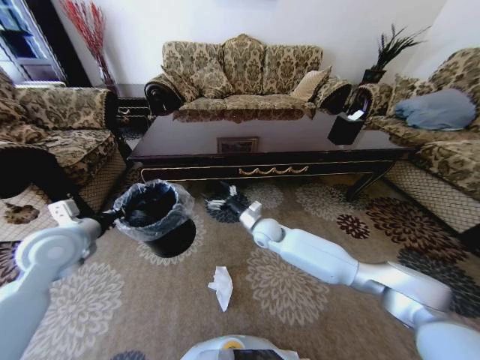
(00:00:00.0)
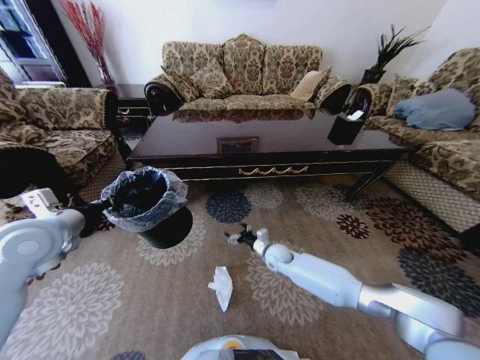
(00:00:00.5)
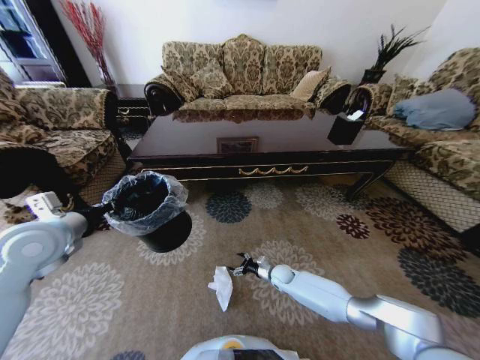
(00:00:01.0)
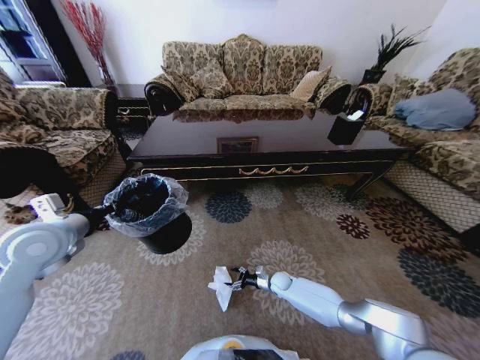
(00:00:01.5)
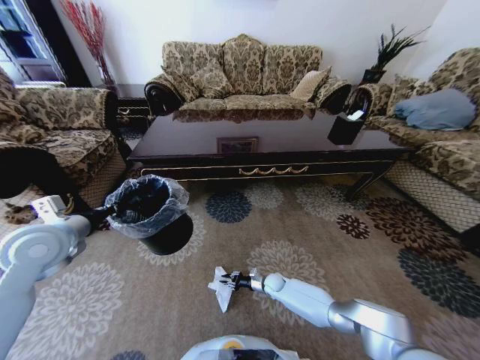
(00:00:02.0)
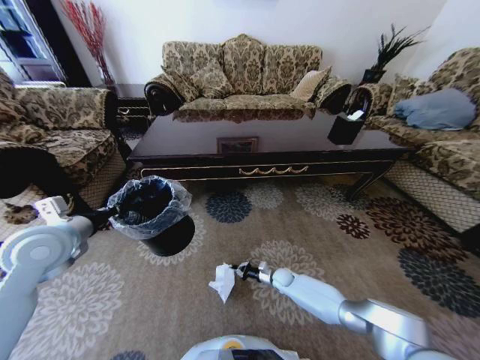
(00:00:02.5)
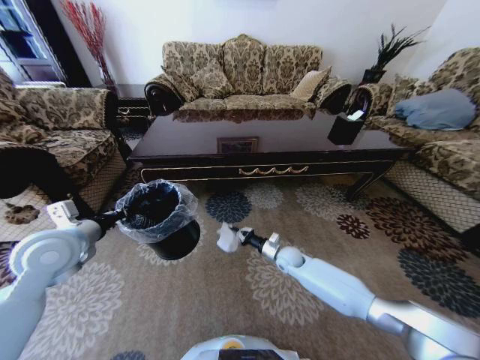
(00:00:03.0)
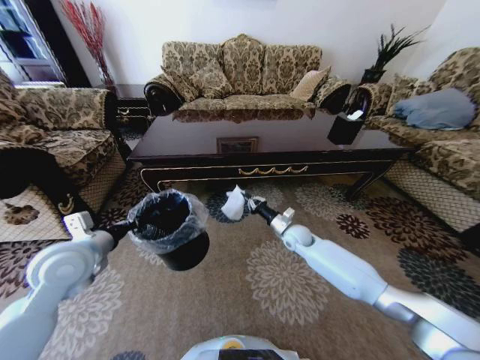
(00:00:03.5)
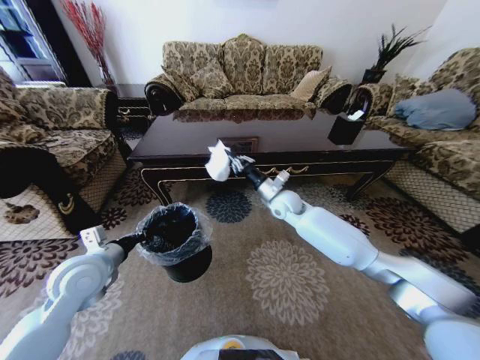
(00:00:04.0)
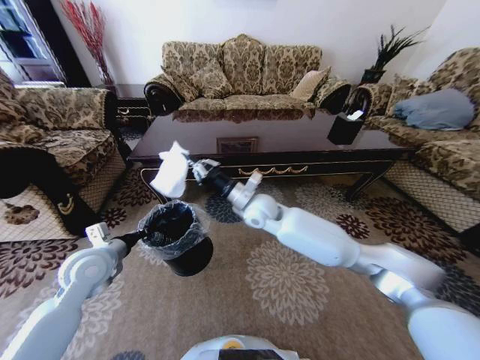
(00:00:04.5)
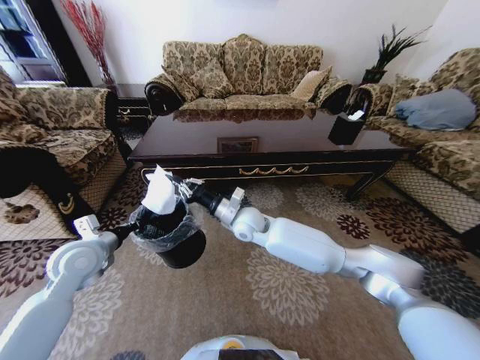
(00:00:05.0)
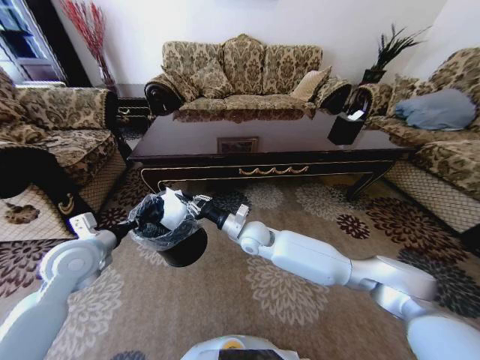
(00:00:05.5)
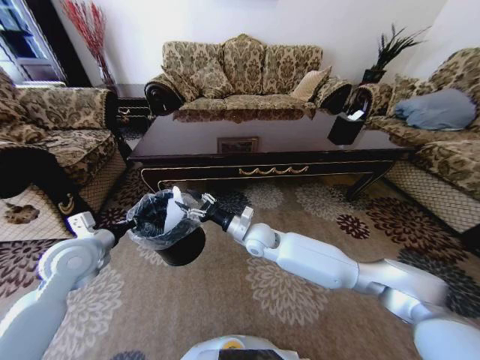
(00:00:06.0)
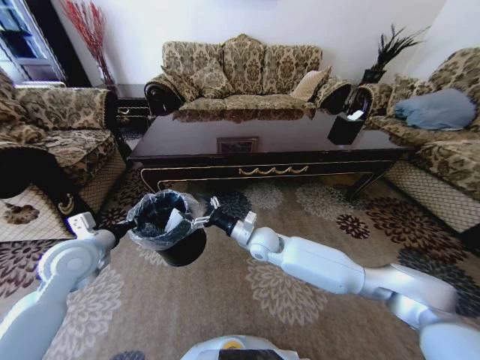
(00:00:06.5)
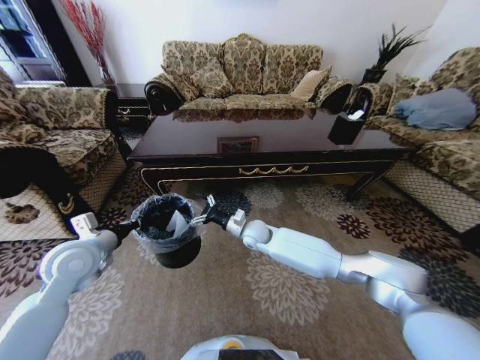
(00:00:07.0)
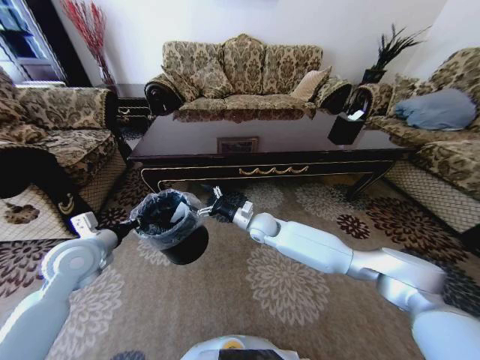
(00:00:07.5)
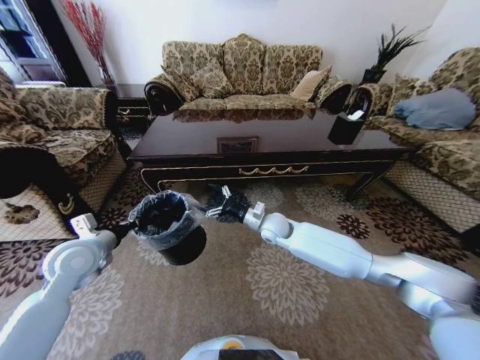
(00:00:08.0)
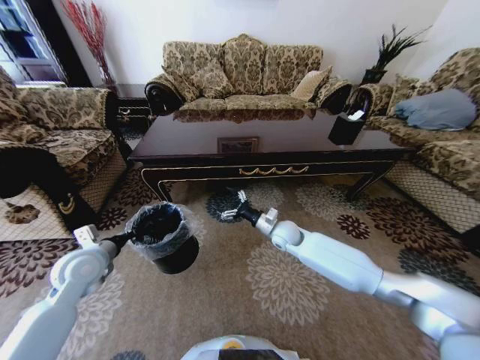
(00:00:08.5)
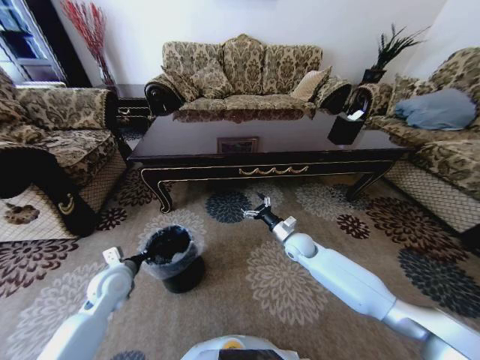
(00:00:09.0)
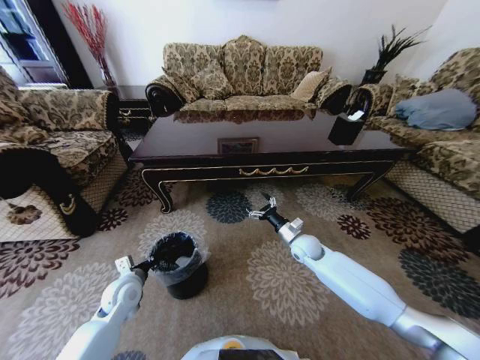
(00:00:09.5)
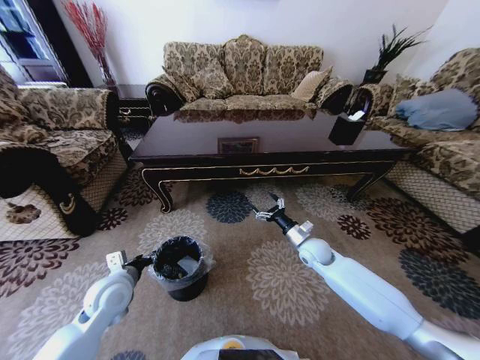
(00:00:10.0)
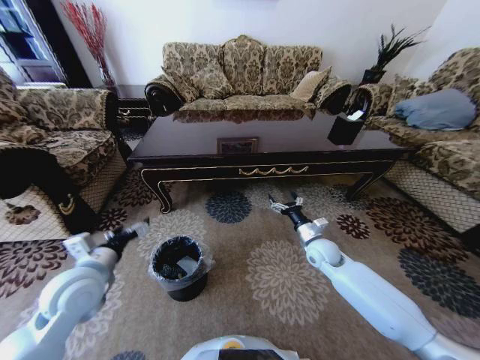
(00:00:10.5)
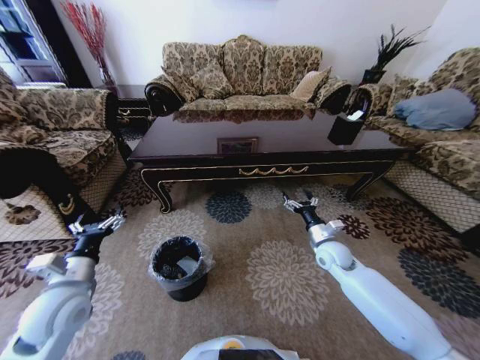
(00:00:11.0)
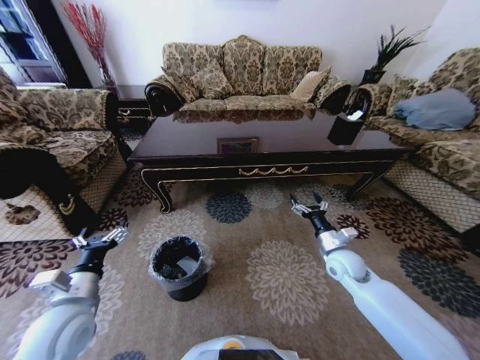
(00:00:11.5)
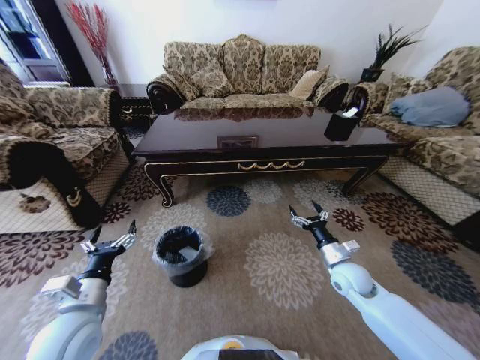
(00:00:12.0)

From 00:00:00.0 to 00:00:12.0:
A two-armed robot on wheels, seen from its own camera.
Task of the whole recording: Move to the front of the table and pick up the trash from the floor, then place it into the trash bin.
From 00:00:00.0 to 00:00:02.0: The right gripper is displaced downward by roughly 30 cm, and closes.
From 00:00:02.0 to 00:00:04.0: The right gripper travels upward by roughly 40 cm, while the left gripper travels downward and to the right by roughly 10 cm.
From 00:00:04.0 to 00:00:06.0: The right gripper shifts roughly 15 cm to the left, backward and downward, and opens its fingers.
From 00:00:06.0 to 00:00:08.0: The right gripper travels to the right by approximately 5 cm, and opens up.
From 00:00:08.0 to 00:00:10.0: The right gripper is displaced to the right and downward by approximately 15 cm. The left gripper shifts about 10 cm downward and to the right, and opens its fingers.
From 00:00:10.0 to 00:00:12.0: The left gripper travels backward by approximately 10 cm, and opens. The right gripper moves backward and to the right, roughly 10 cm.

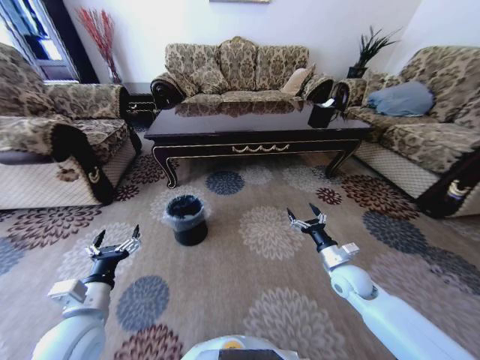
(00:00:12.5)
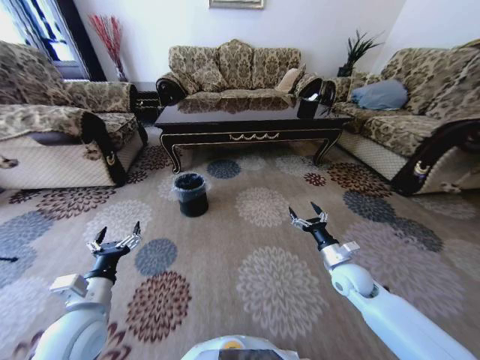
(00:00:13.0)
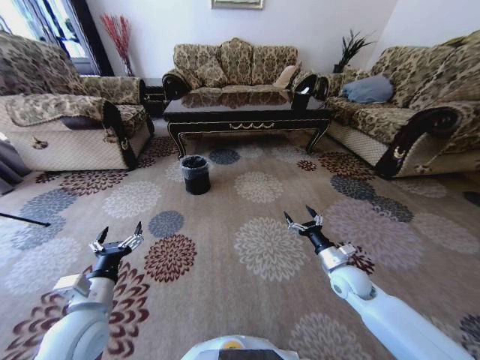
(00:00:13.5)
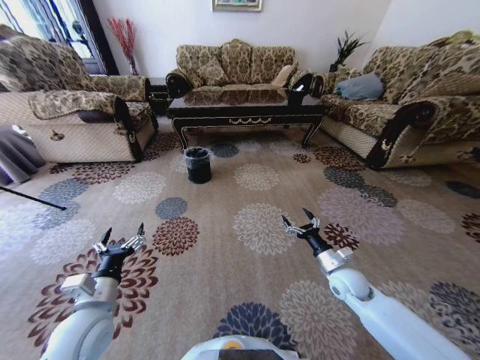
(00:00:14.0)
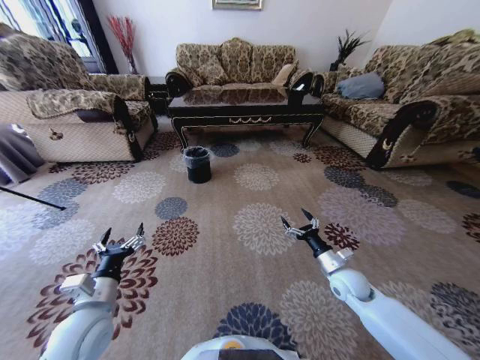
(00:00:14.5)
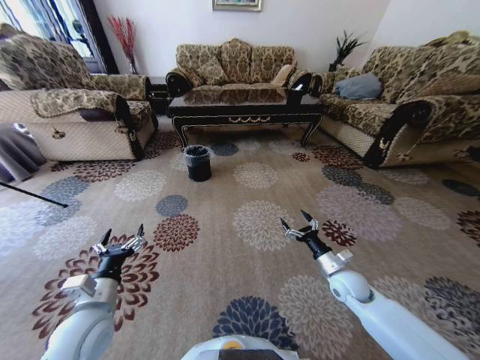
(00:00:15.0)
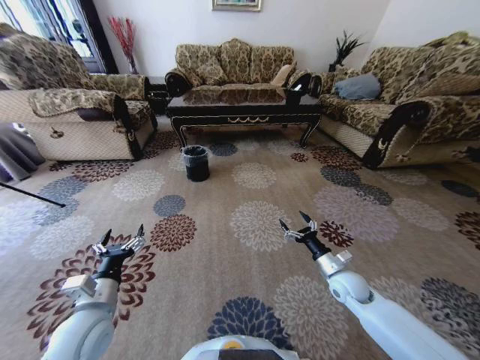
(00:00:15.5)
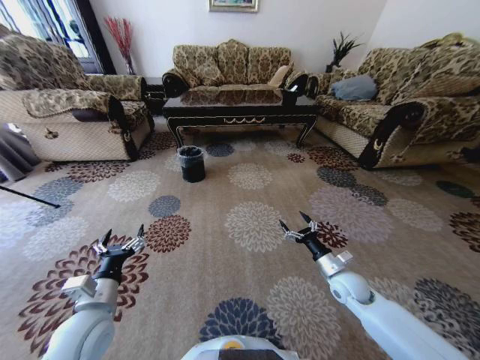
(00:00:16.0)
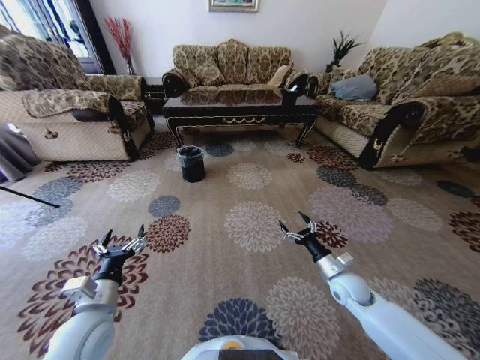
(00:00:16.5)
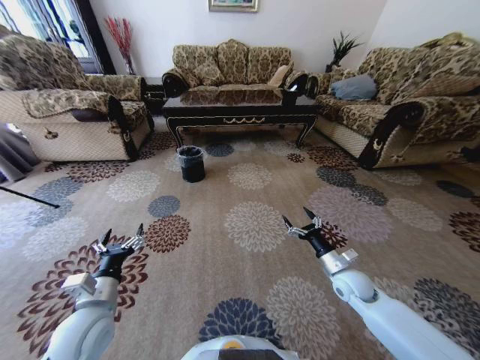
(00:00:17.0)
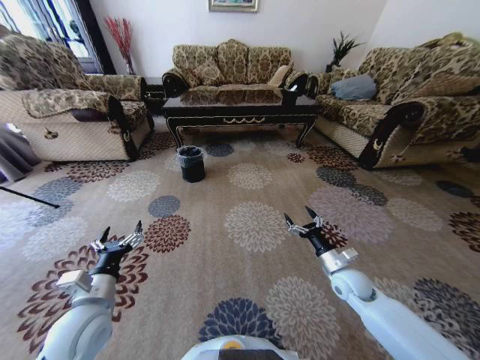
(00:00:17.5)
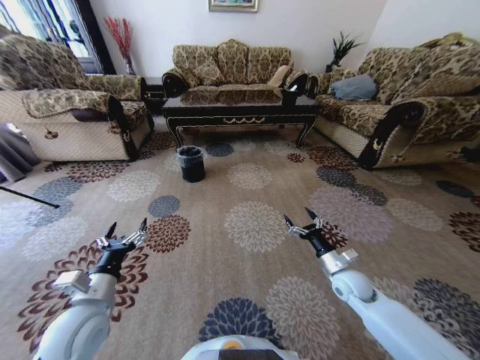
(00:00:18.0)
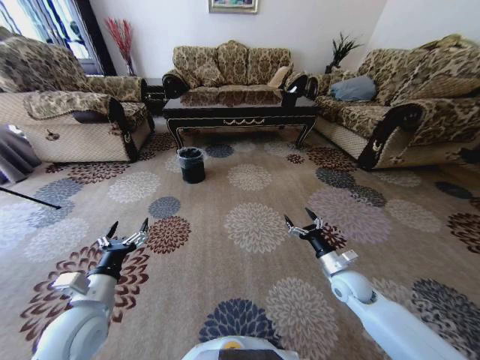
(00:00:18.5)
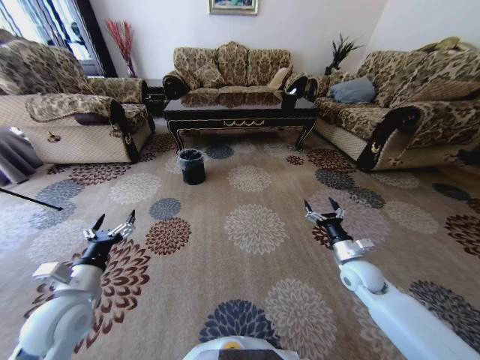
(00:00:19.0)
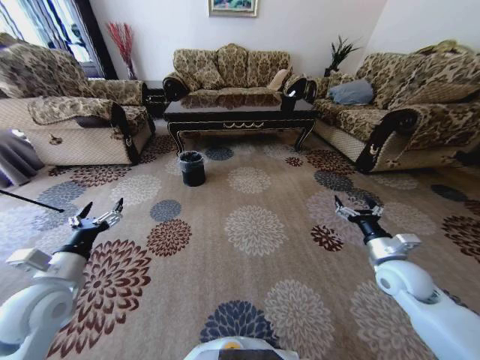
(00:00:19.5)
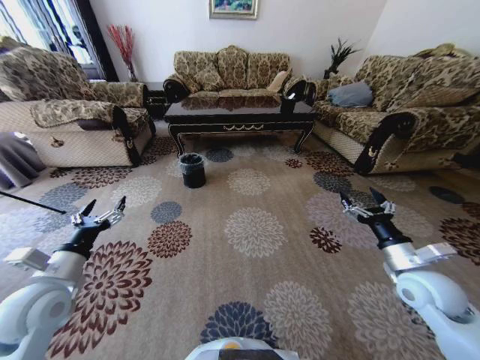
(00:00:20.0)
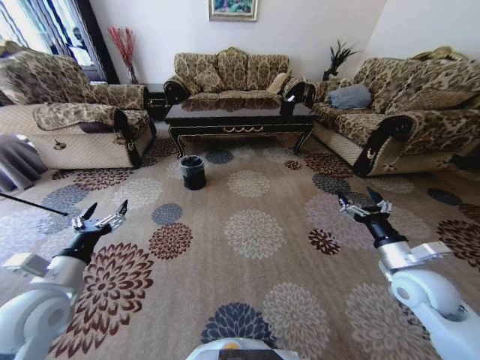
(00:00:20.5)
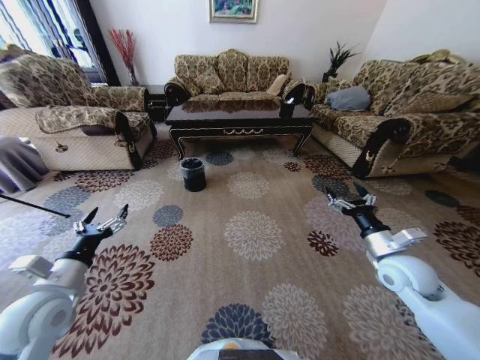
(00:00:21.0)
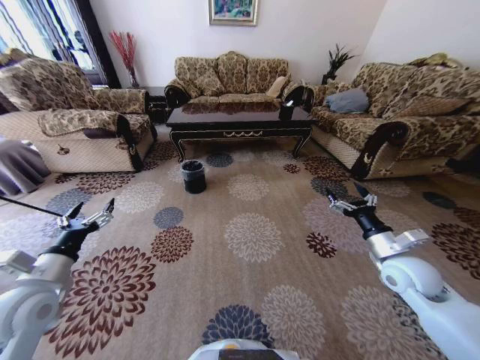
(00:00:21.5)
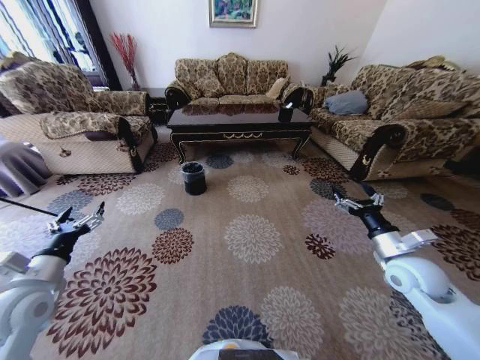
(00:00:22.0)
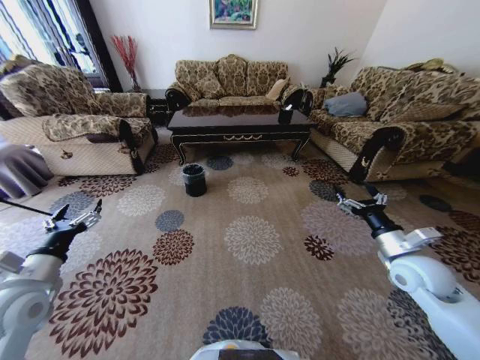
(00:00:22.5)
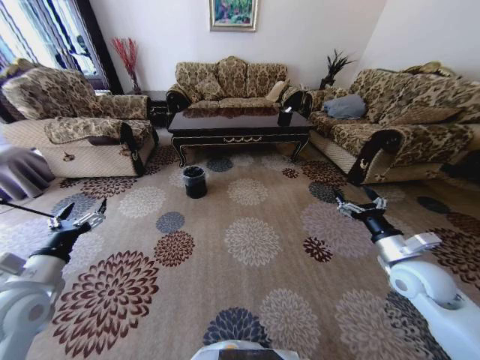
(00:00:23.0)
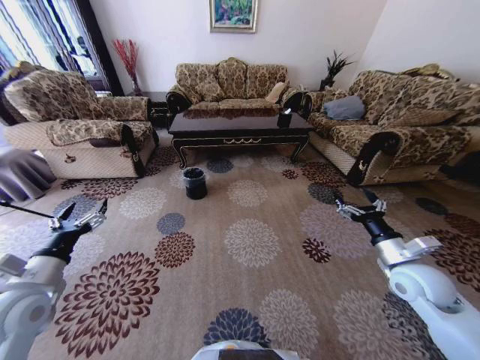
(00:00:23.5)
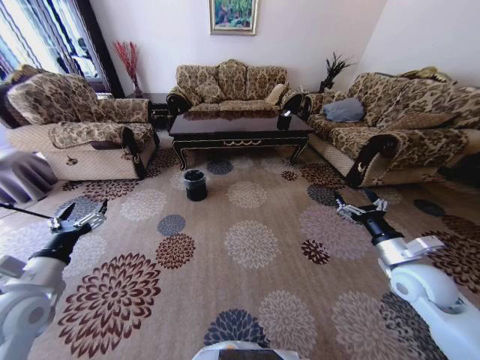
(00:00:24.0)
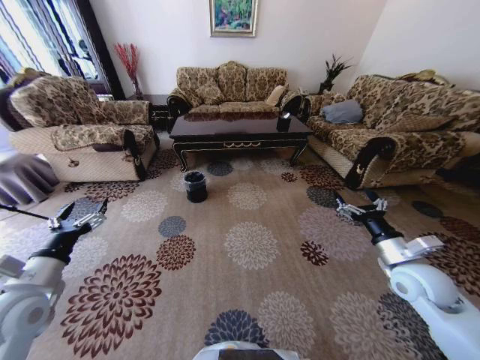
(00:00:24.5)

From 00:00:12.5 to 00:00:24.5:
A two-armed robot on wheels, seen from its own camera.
Task of the whole recording: Move to the front of the table and pick up the trash from the floor, then place it into the trash bin.
From 00:00:16.5 to 00:00:18.5: There are only small adjustments of the grippers.
From 00:00:18.5 to 00:00:20.5: The right gripper heads upward and to the right, covering roughly 15 cm. The left gripper is displaced to the left and upward by about 10 cm.
From 00:00:20.5 to 00:00:22.5: The left gripper heads to the left, covering approximately 5 cm.

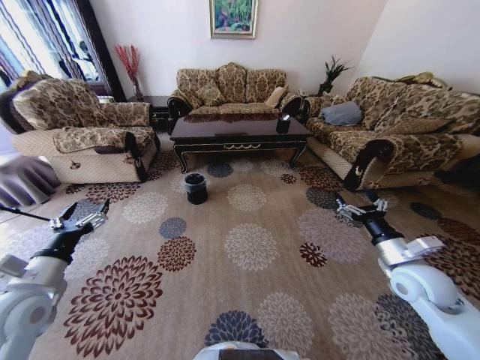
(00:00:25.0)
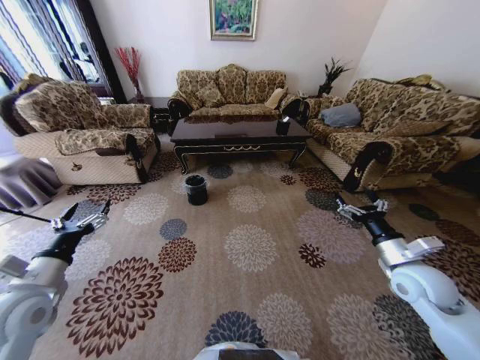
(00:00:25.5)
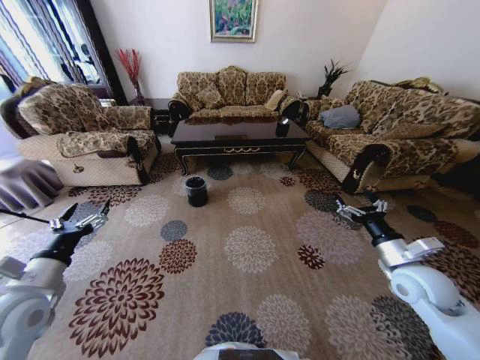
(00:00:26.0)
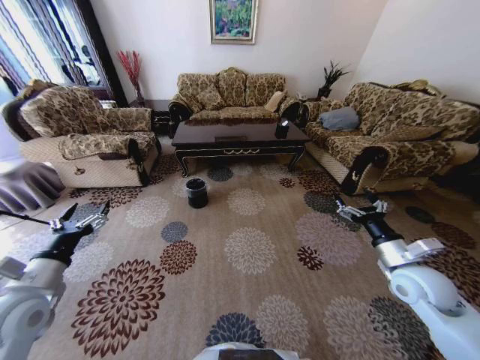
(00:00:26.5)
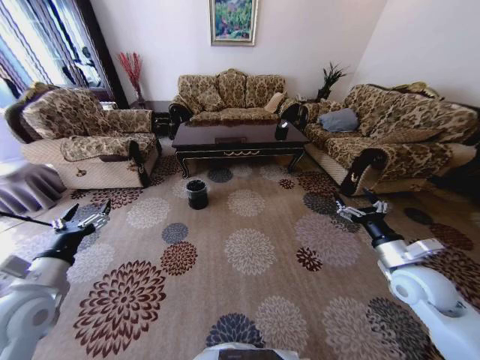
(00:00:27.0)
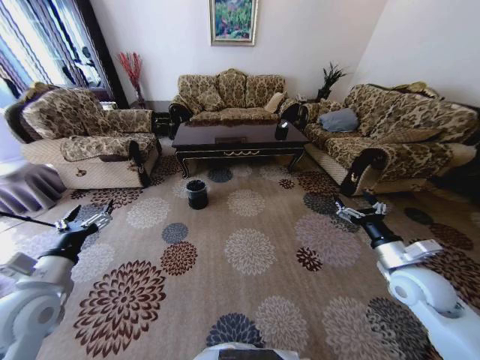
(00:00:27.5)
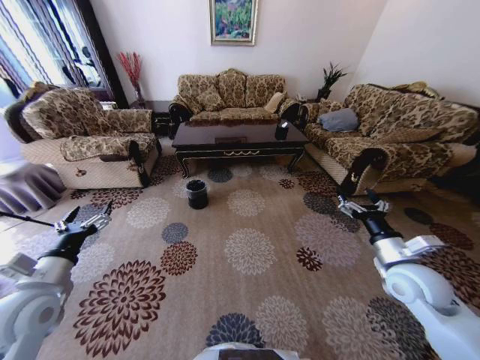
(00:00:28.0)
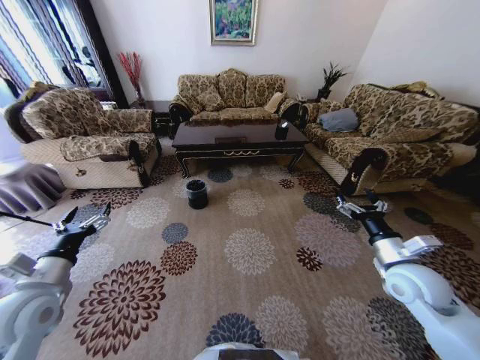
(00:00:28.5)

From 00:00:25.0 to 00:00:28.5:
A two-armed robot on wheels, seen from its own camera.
Task of the whole recording: Move to the front of the table and pick up the trash from the floor, then place it into the trash bin.
From 00:00:27.0 to 00:00:28.5: There are only small adjustments of the grippers.
